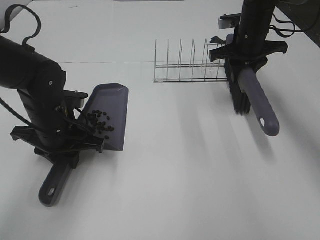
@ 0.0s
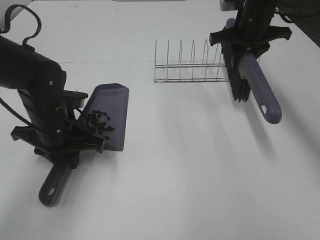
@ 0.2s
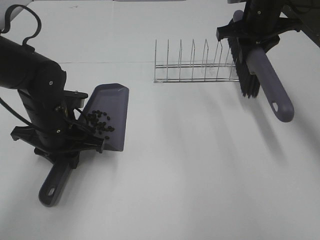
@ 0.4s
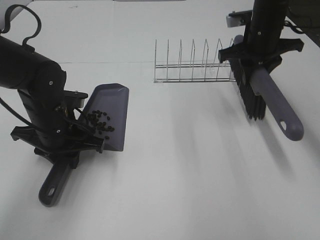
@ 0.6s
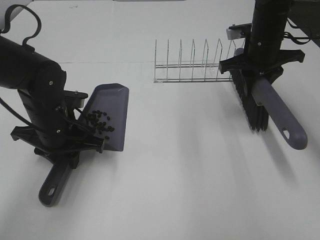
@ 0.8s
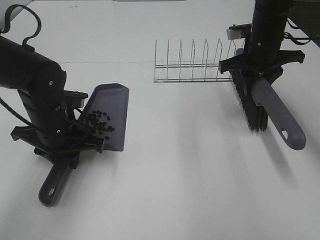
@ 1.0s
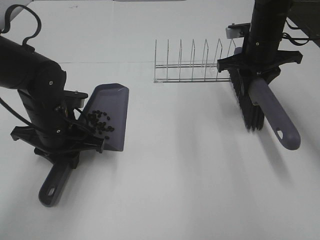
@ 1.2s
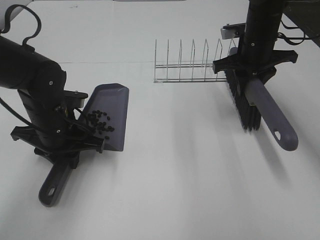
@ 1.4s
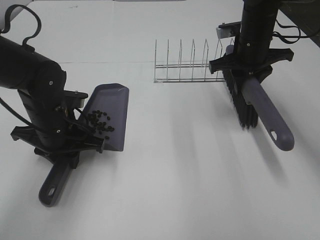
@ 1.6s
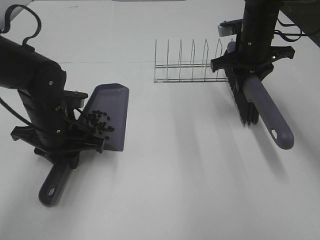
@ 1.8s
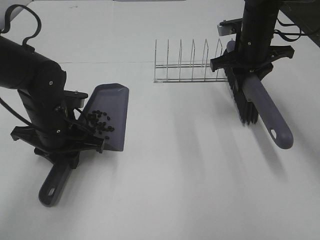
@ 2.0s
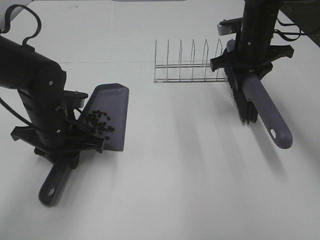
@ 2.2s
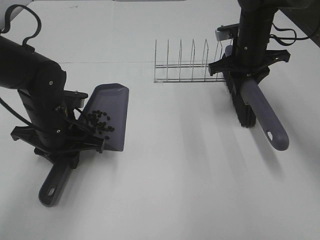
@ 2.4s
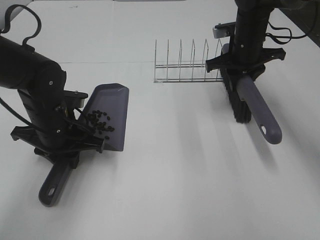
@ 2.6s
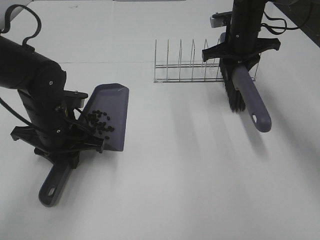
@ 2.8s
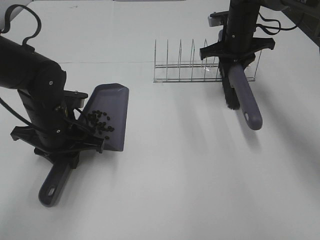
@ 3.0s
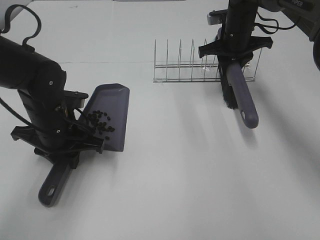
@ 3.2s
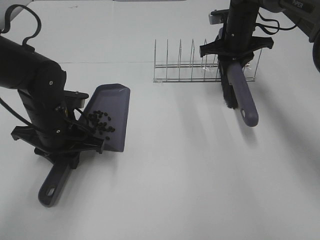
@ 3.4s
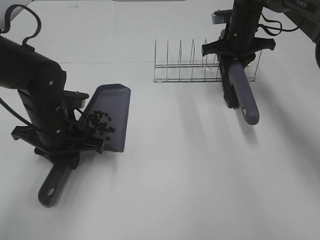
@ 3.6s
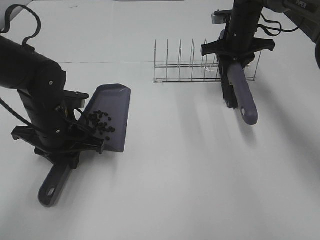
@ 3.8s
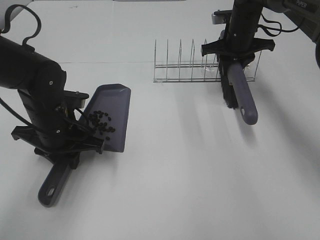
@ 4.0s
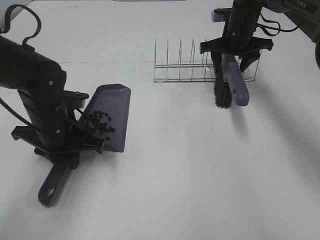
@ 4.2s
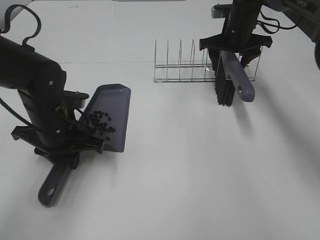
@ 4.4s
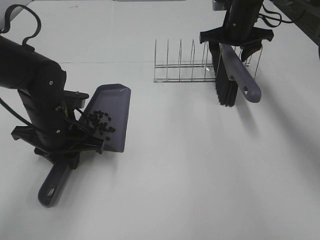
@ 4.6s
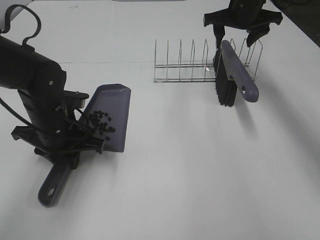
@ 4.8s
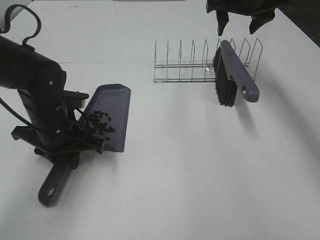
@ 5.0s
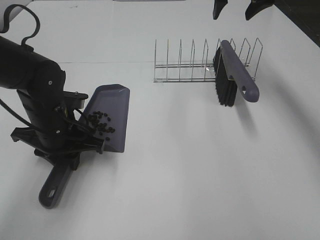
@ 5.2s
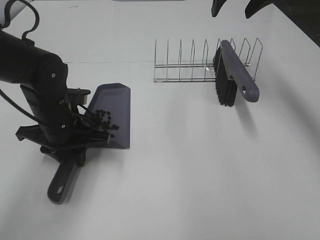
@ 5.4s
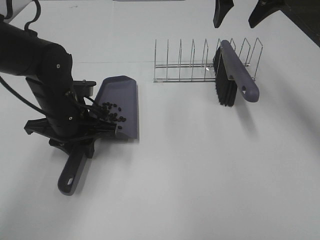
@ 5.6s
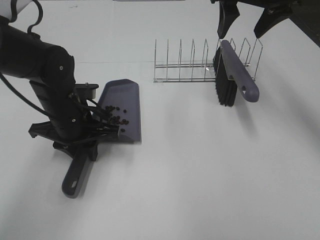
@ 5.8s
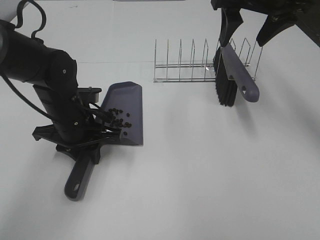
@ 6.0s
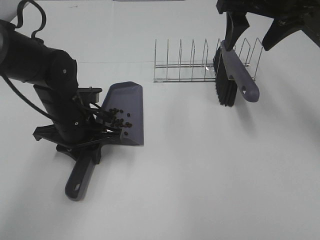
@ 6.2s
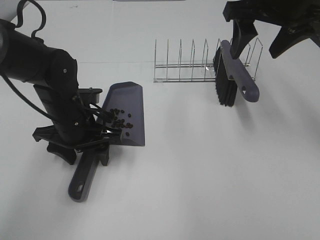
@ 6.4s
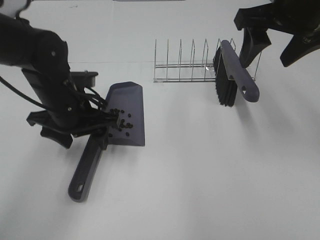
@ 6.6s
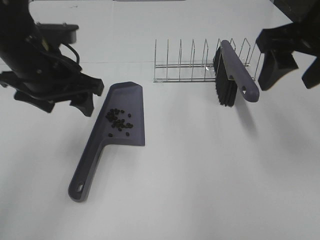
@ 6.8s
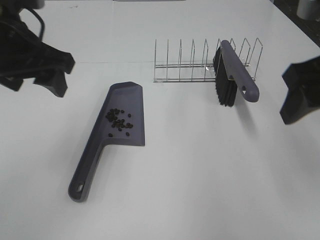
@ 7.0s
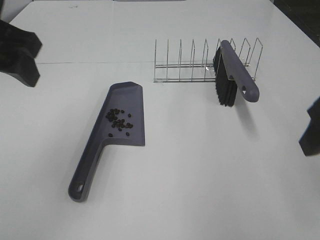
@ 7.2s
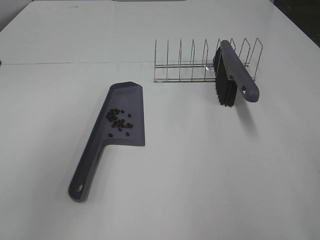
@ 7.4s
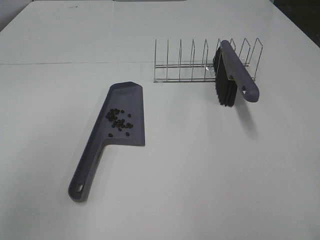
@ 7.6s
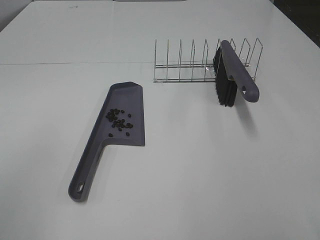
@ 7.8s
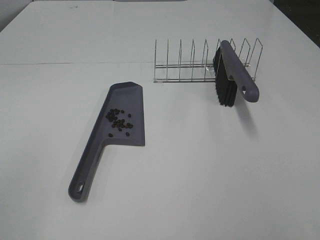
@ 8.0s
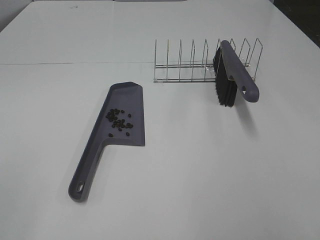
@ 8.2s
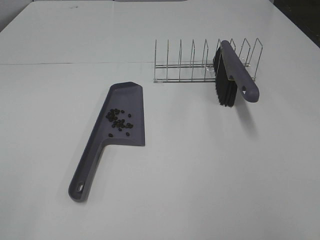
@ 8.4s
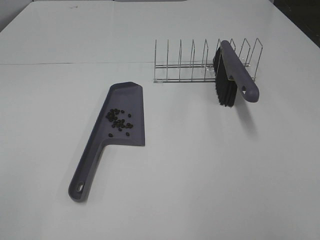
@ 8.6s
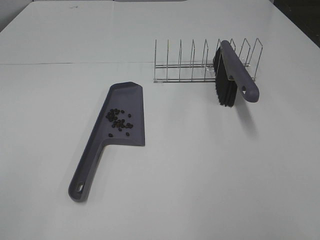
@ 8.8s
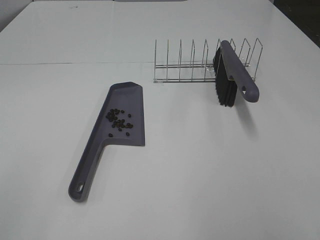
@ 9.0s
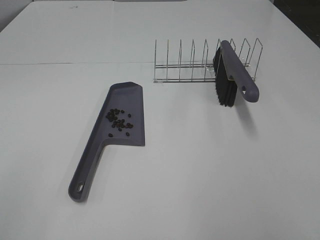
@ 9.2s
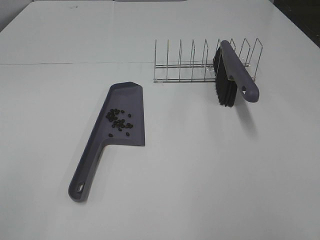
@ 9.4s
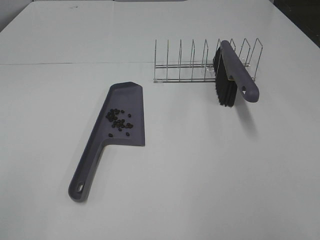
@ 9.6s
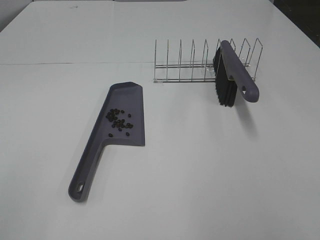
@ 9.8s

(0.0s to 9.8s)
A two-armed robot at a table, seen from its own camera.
Task of the whole recording: Sweep Coffee Bean.
Step, 0.0s - 4.6s: Right hand:place the broom on the rack.
Step, 4.8s - 6.4s: Left hand:place the dustpan on the table.
0.0s - 1.4s: The grippers move only a little.
1.4s - 2.8s: The right gripper goes about 5 cm forward.
2.8s - 4.2s: The right gripper opens up.
4.2s - 5.6s: The right gripper shifts approximately 20 cm upward and backward.
5.6s - 7.0s: The right gripper heads backward, covering some 20 cm; the left gripper goes some 15 cm upward, and opens up.
7.0s - 8.4s: The right gripper goes some 20 cm backward. The left gripper heads backward and to the left, covering some 30 cm.

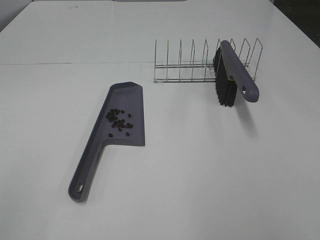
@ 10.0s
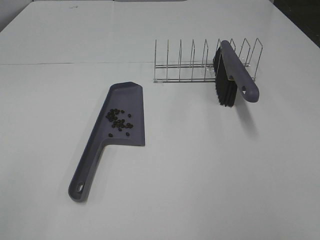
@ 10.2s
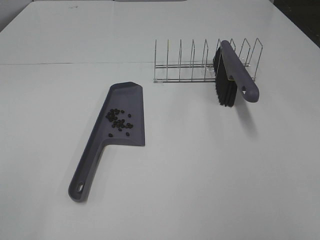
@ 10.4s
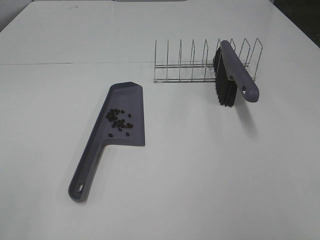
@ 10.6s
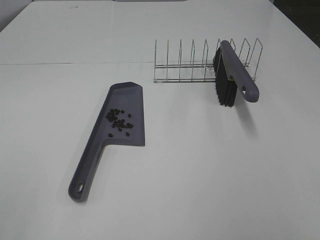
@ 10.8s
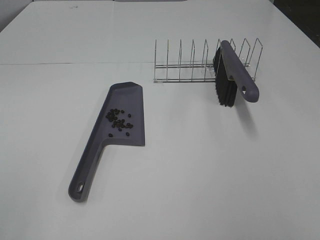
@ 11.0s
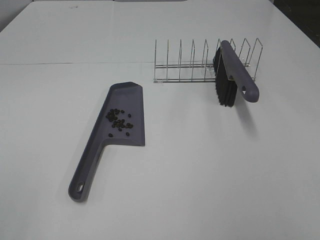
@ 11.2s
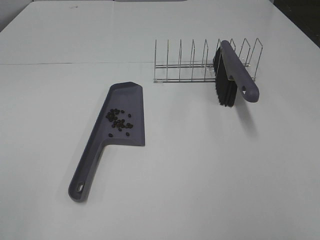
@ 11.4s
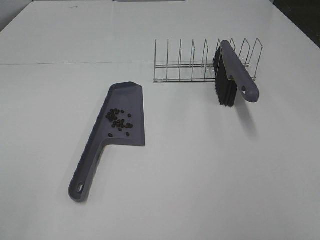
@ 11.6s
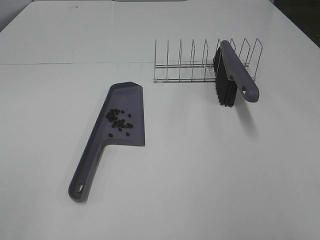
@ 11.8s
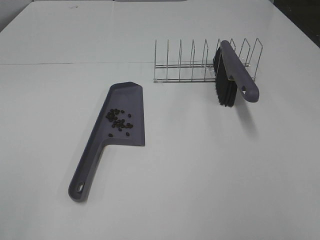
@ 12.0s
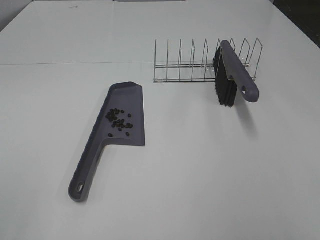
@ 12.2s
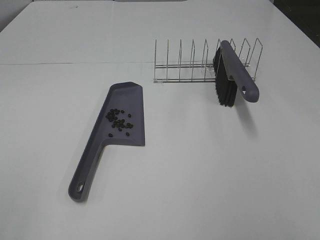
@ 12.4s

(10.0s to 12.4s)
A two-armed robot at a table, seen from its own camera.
Task of the whole recording: Sweep Coffee Bean.
11.2s - 12.4s: Neither gripper changes place.

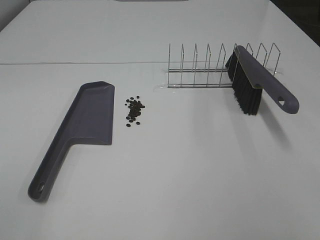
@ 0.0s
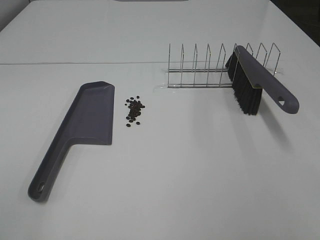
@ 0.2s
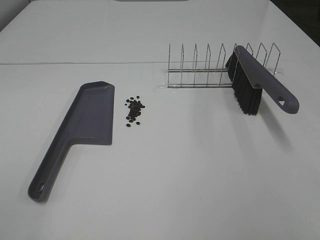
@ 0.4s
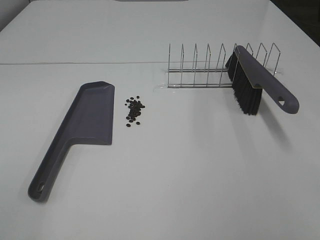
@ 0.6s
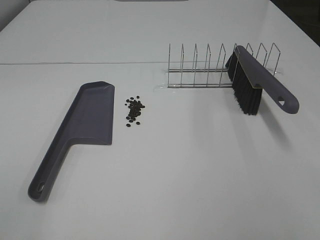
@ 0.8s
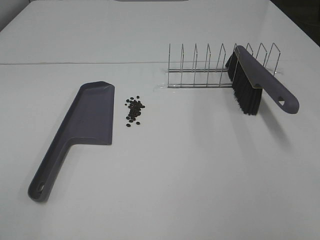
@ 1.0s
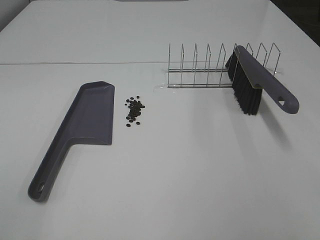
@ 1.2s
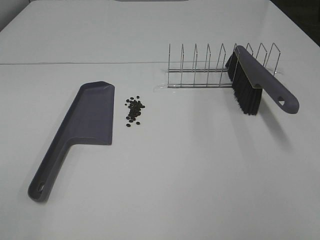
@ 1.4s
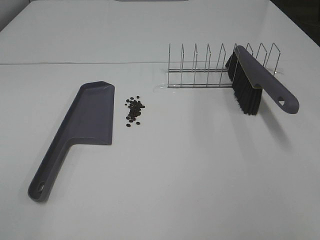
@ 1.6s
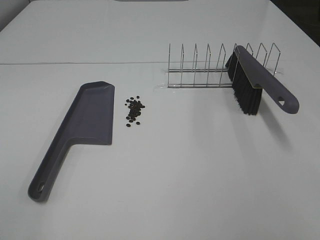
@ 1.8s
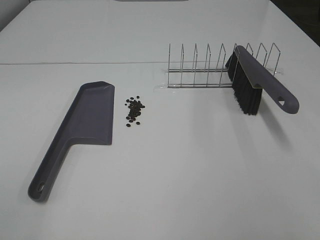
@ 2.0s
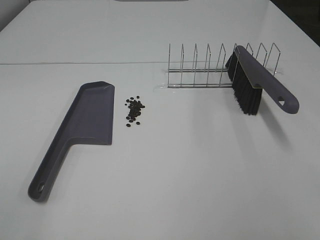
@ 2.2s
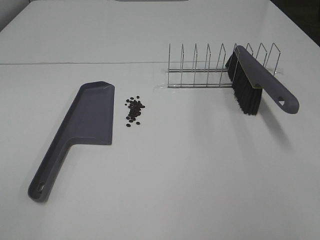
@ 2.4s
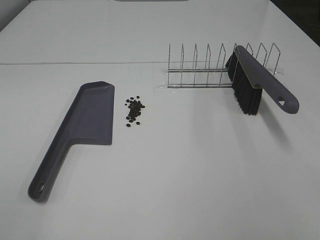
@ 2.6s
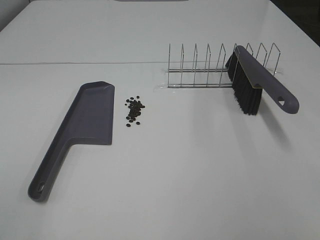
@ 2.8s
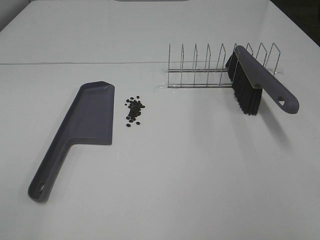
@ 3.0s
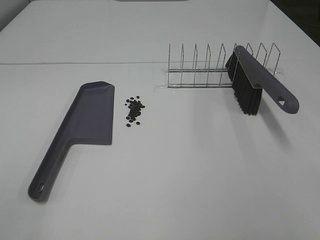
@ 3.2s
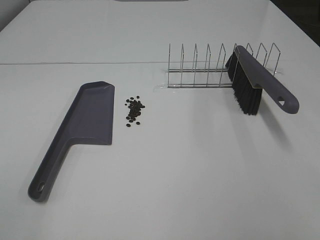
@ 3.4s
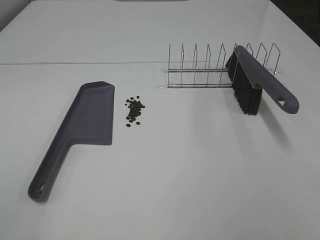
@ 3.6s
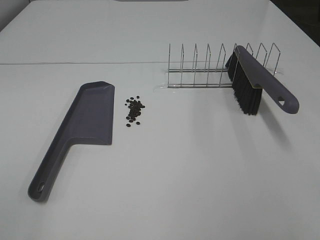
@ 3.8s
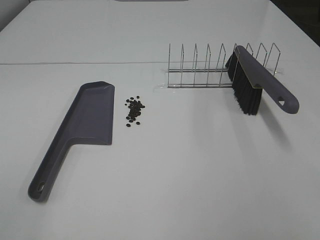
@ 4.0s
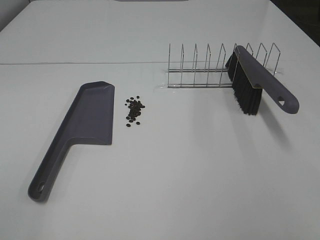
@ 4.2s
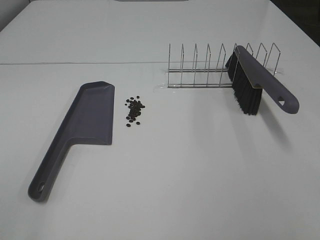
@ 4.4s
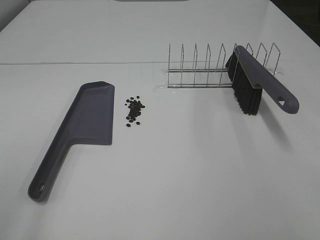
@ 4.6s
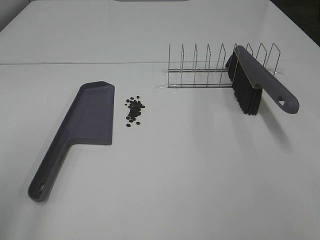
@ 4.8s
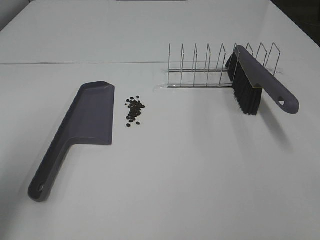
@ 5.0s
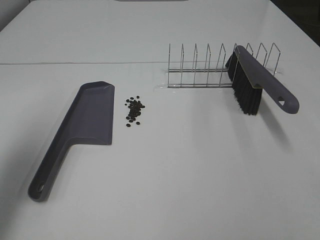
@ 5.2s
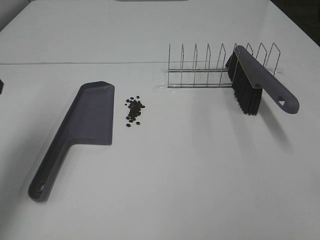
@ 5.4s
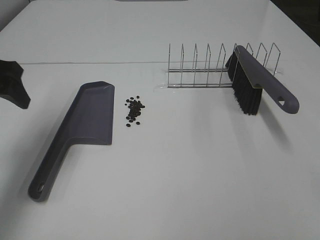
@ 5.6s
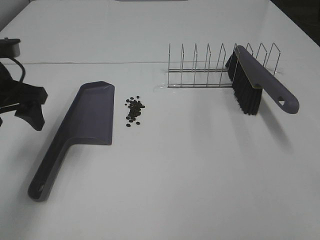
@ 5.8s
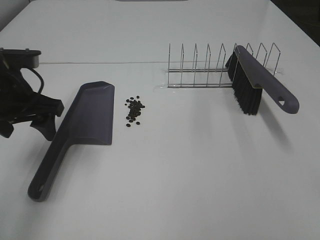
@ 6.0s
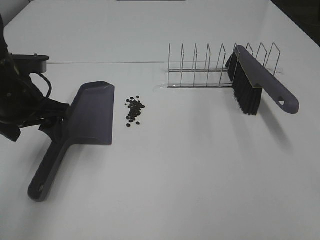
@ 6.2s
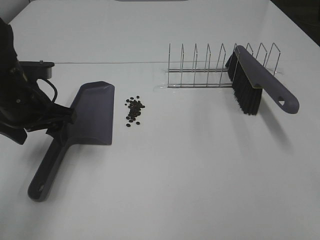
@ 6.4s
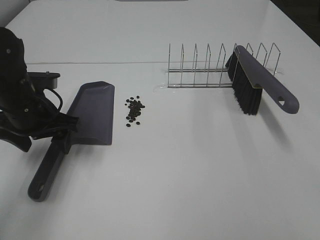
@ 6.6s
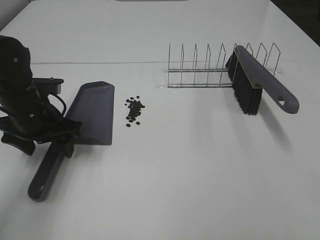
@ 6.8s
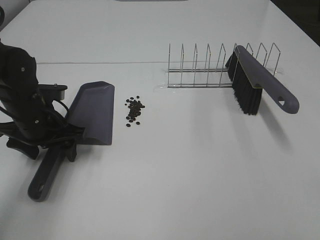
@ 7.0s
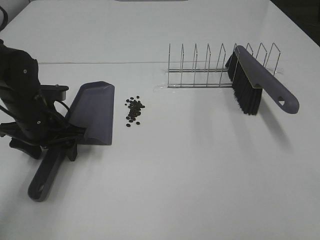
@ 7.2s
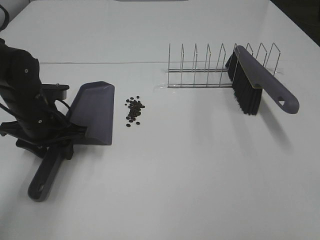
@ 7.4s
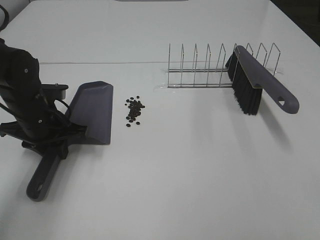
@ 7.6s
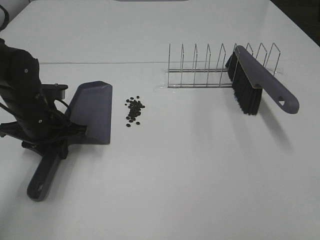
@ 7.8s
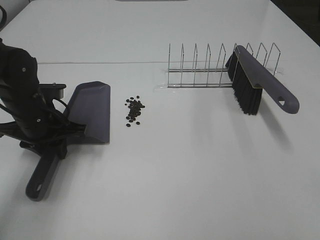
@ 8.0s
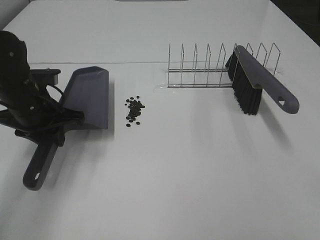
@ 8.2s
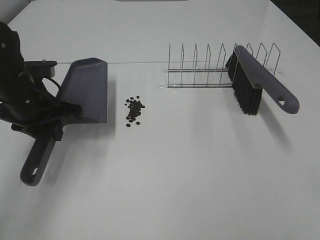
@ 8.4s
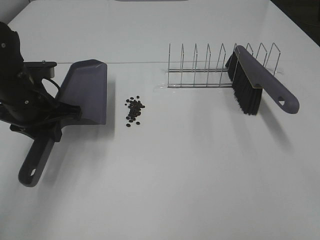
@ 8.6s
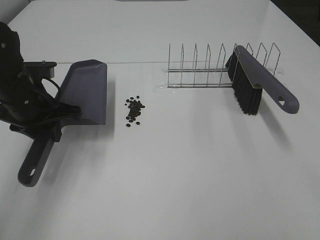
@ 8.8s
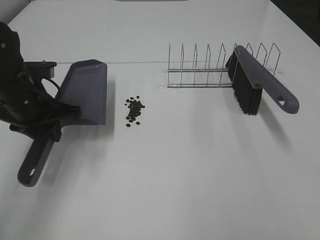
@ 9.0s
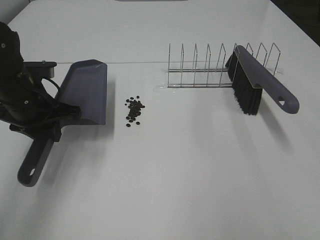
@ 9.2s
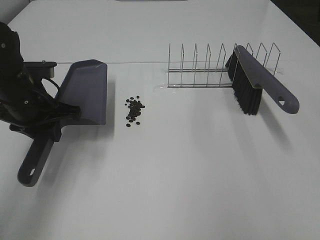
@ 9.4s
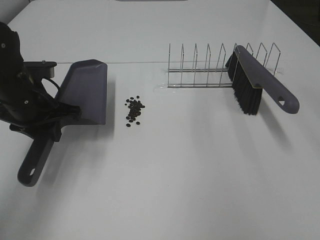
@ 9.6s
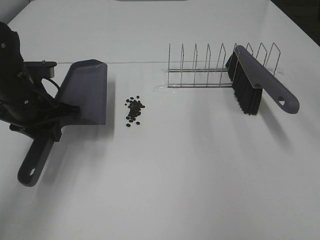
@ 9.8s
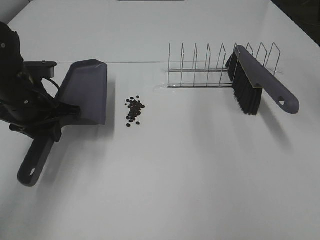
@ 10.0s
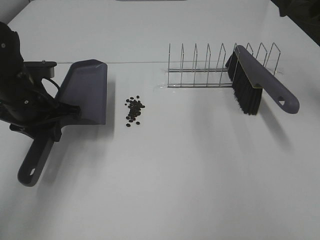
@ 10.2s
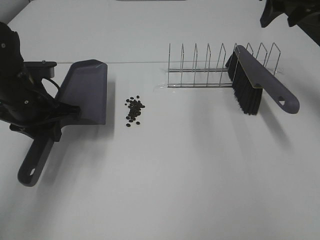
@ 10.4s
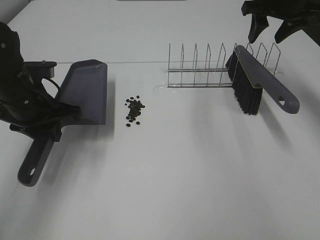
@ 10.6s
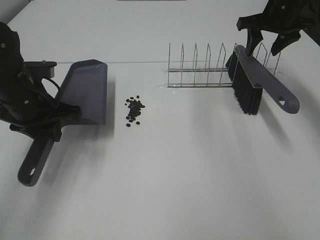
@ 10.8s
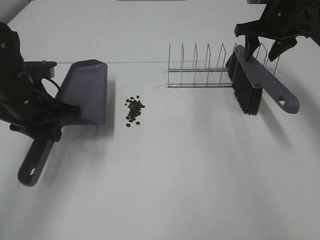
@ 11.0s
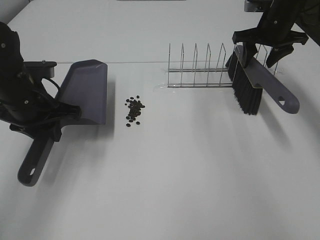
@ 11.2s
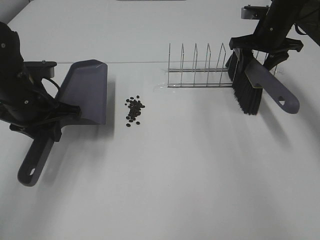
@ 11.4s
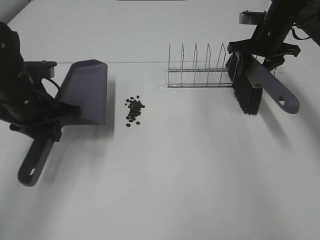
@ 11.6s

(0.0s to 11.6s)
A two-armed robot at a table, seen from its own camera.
Task of the whole recording: Sweep Coffee Bean.
Step, 0.0s - 7.8s: Left hand: grab the dustpan.
0.0s - 4.4s: Both grippers stay about where they are.
4.4s - 5.8s: The left gripper travels forward by approximately 30 cm.
5.8s - 7.2s: The left gripper moves downward, roughly 10 cm.
7.2s - 8.8s: The left gripper is displaced upward by about 5 cm, and closes its fingers.
8.8s - 10.2s: The right gripper travels forward by roughly 40 cm.
10.2s - 11.6s: The right gripper travels downward and forward by approximately 20 cm.
